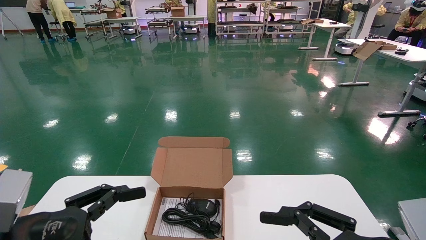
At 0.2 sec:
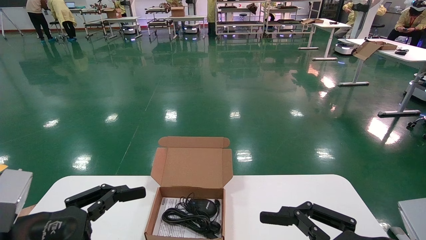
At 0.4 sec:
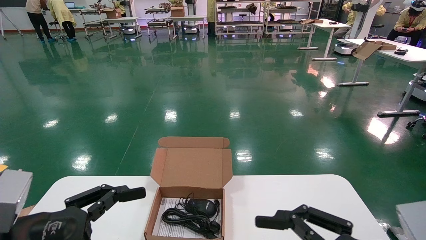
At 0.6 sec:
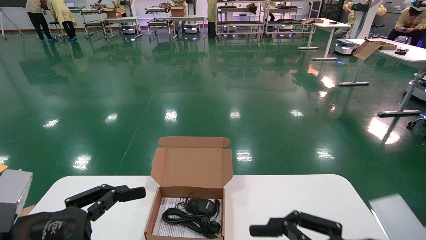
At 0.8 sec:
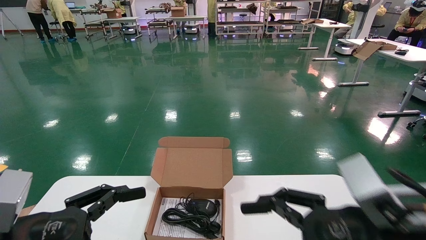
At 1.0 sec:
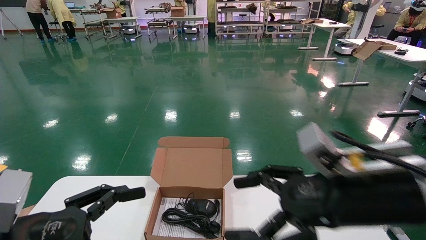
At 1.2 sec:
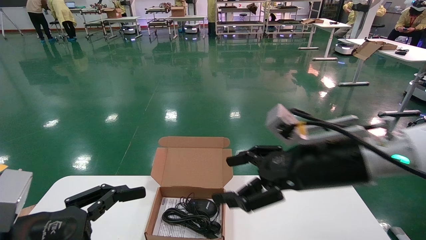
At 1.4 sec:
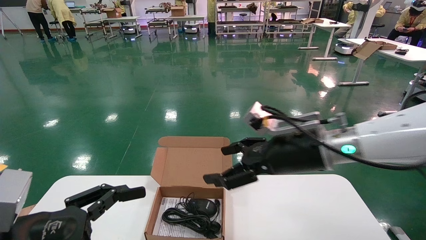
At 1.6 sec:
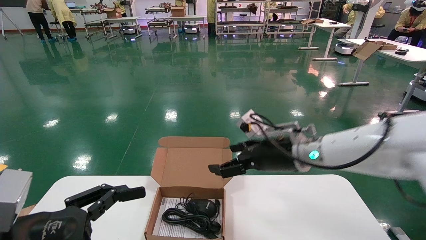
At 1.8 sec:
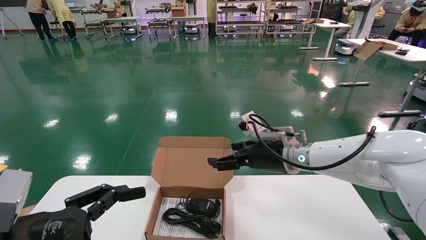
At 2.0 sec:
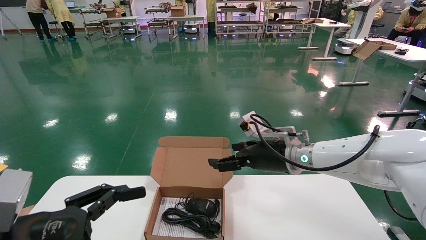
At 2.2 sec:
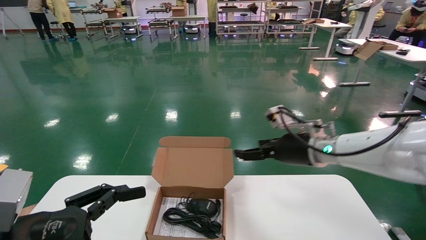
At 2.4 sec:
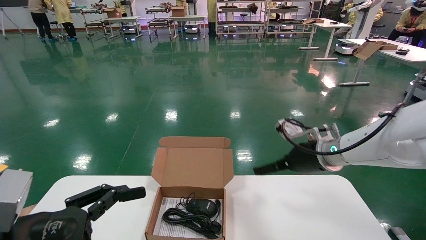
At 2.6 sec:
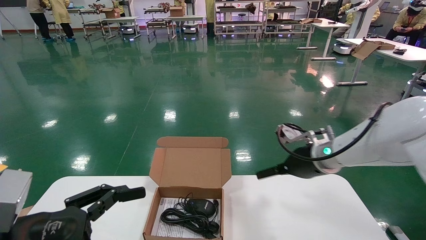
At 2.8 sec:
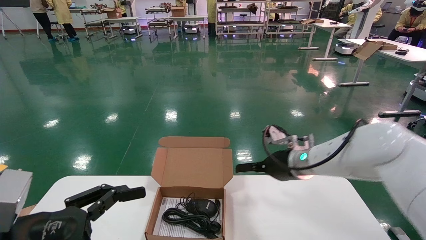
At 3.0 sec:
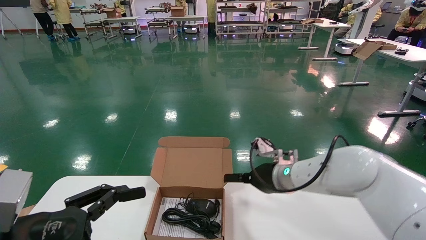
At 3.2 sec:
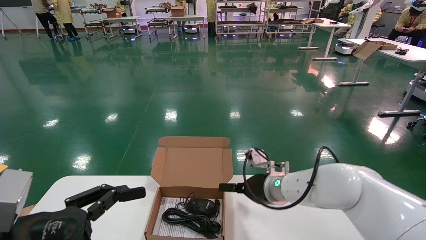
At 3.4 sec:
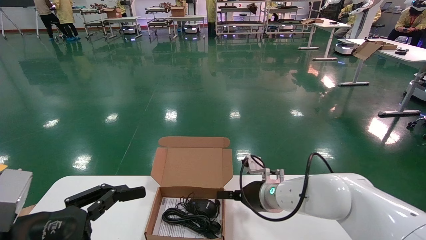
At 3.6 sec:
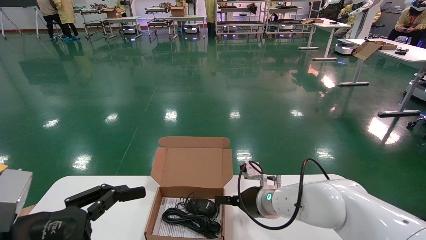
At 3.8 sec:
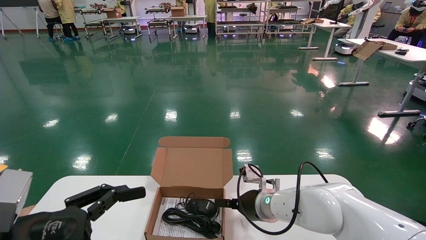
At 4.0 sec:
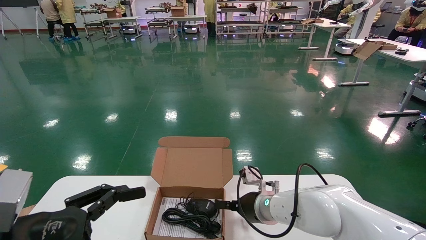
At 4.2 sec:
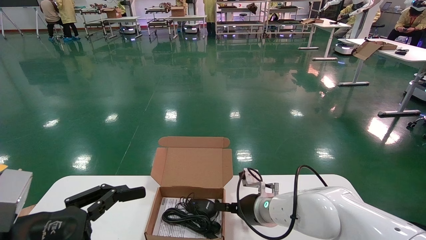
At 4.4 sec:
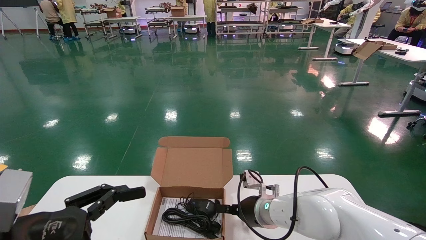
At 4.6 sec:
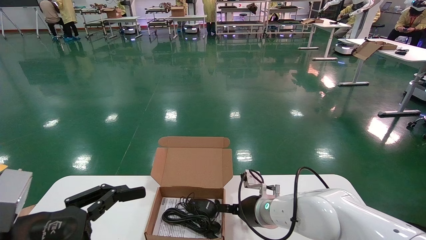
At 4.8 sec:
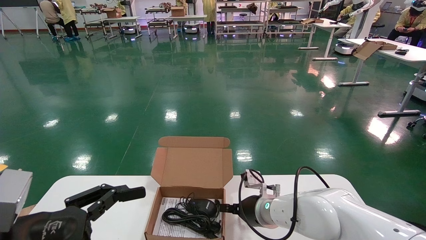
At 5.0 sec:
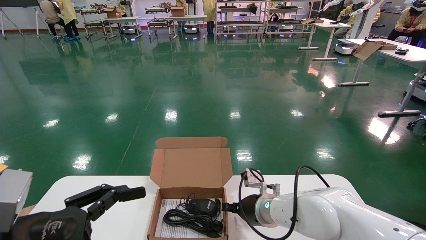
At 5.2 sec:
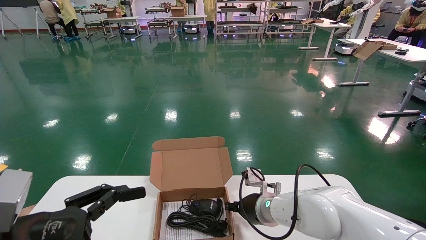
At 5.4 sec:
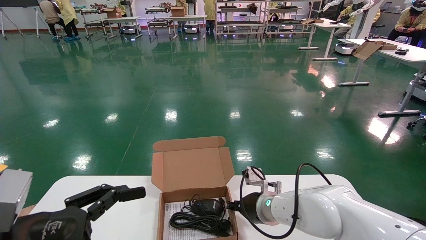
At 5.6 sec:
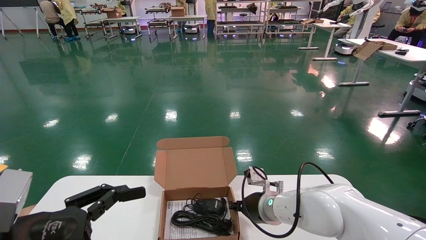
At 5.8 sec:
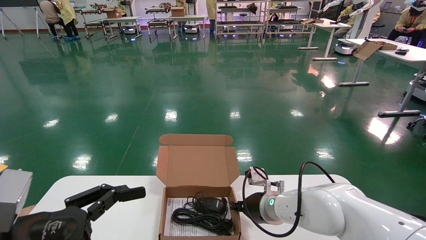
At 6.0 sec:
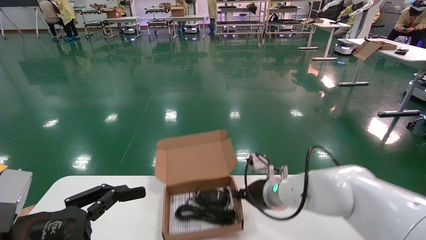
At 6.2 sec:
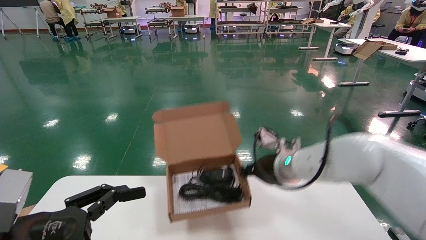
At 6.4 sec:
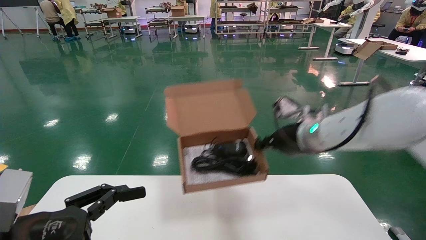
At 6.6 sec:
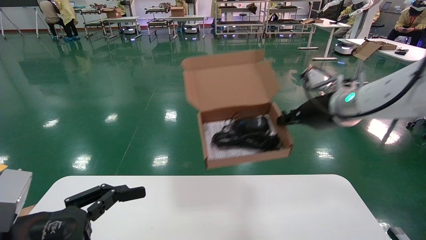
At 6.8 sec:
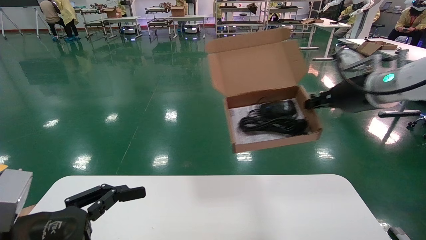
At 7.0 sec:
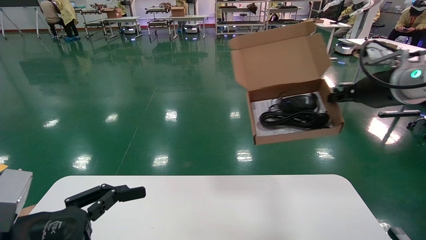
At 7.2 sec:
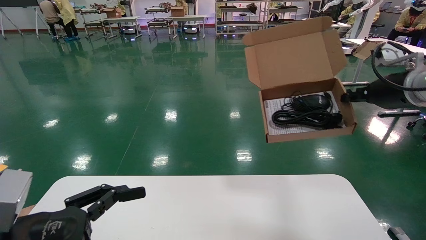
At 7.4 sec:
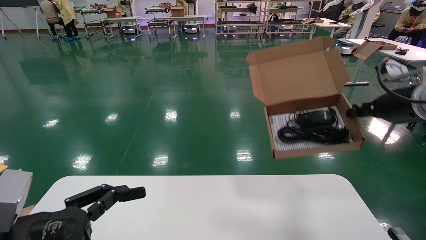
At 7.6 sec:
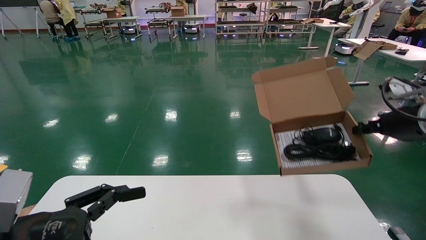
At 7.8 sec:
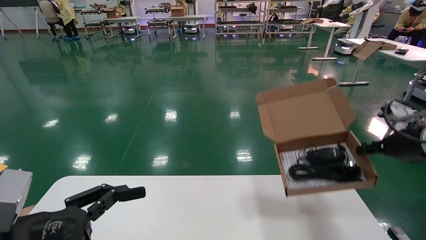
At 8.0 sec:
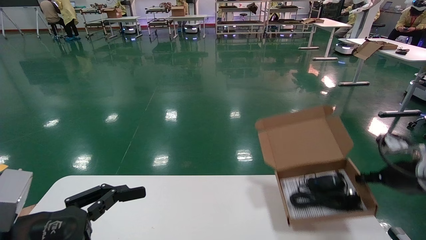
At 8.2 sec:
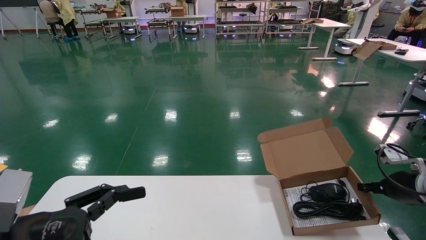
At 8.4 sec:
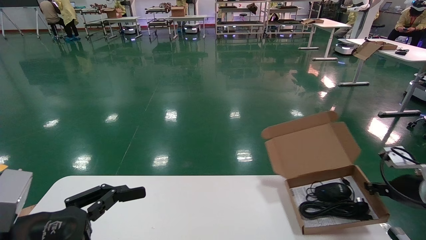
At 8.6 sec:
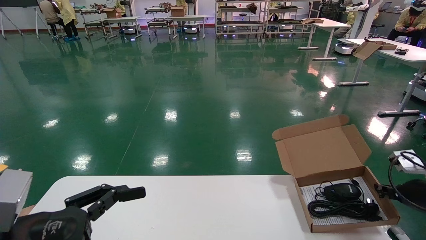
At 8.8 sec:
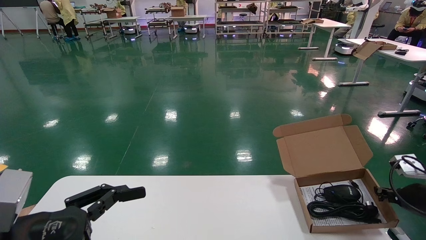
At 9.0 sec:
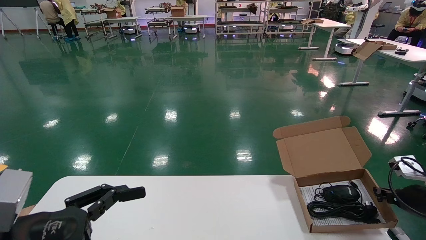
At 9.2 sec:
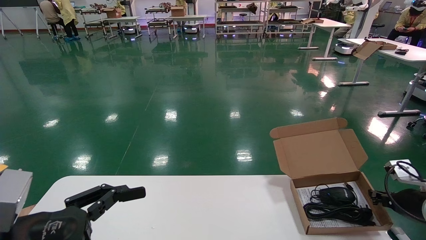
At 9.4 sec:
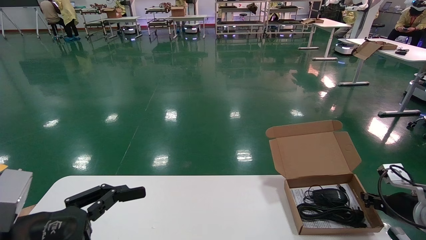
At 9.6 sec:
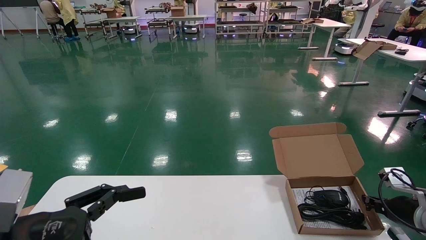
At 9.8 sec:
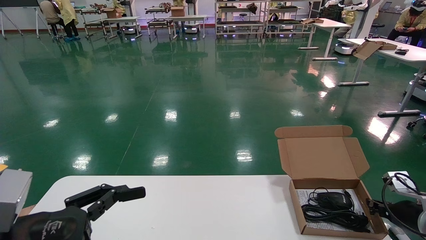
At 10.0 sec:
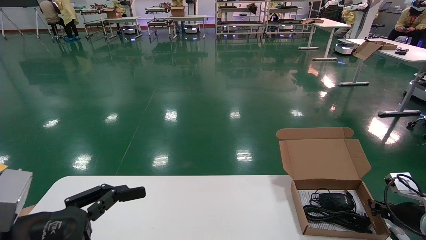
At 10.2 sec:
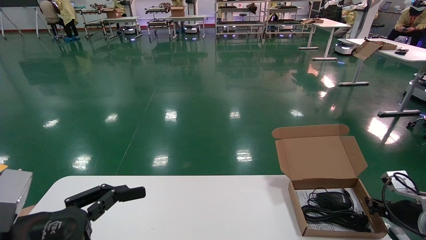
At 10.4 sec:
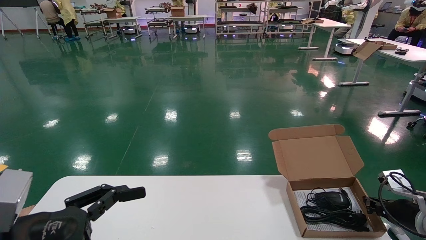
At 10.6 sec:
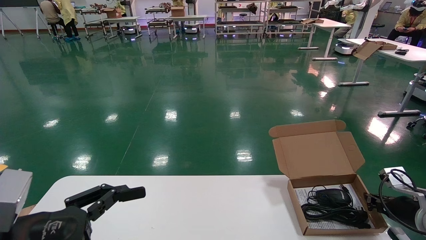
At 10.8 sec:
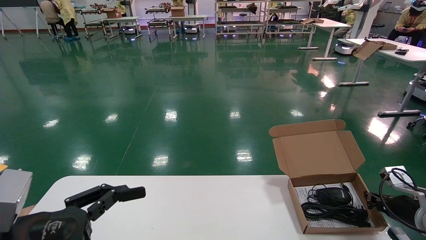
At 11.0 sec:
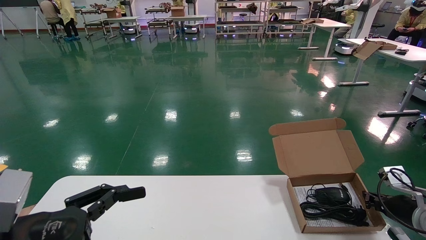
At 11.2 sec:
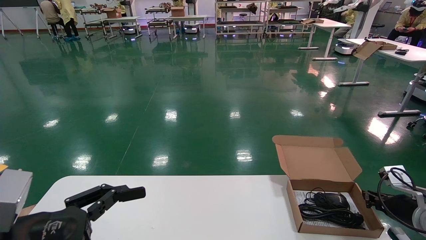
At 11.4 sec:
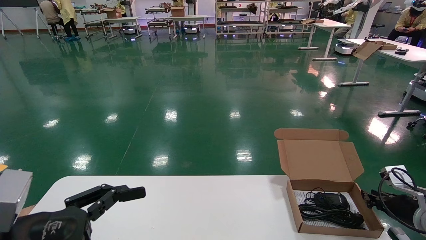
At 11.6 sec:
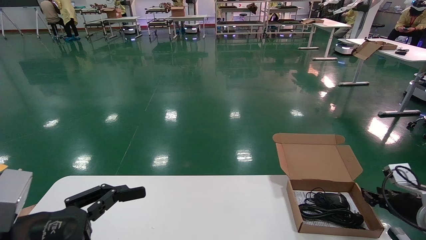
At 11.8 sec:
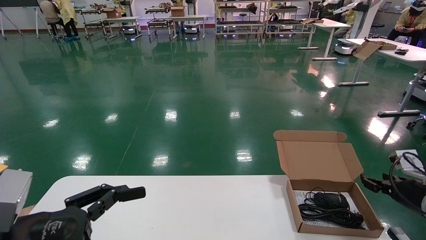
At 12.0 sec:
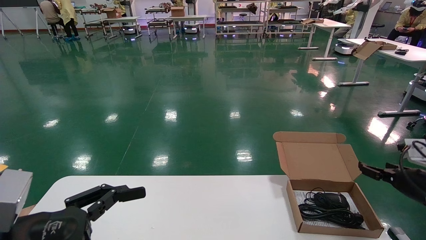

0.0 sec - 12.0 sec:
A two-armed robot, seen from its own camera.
Task of the whole recording: move the position of the storage box with accessories on the table.
Step, 1.0 sec - 5.6 sec: Grab and pick up the open mouse box from the accessory packaging area.
Step, 5.8 sec - 11.2 sec: Place the open mouse box onto the operation table.
0.0 sec - 1.6 sec: The right gripper shifts approximately 25 cm forward and to the left.
1.6 sec - 3.0 sec: The right gripper travels downward and forward by about 10 cm, and travels to the right and back again, approximately 5 cm each way.
3.0 sec - 4.4 sec: The right gripper goes some 10 cm downward.
4.4 sec - 6.0 sec: The right gripper is displaced upward by about 5 cm, and closes up.
6.0 sec - 7.6 sec: The right gripper goes roughly 30 cm to the right and upward.
7.6 sec - 9.0 sec: The right gripper is displaced downward by roughly 20 cm.
9.0 sec - 10.4 sec: There are only small adjustments of the grippers.
10.4 sec - 12.0 sec: The right gripper travels upward by some 5 cm, and opens its fingers.

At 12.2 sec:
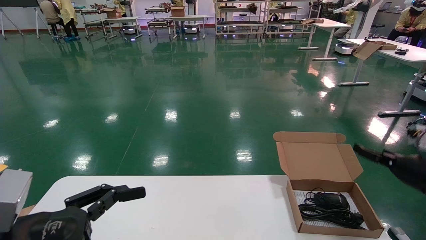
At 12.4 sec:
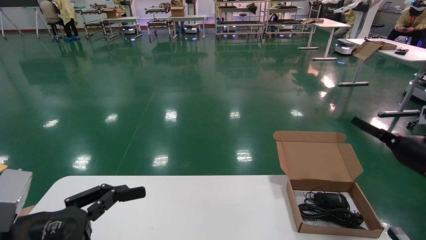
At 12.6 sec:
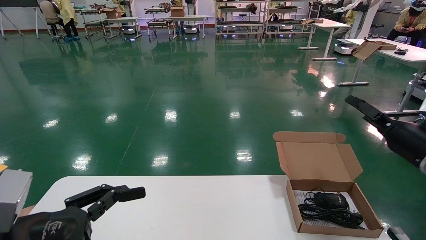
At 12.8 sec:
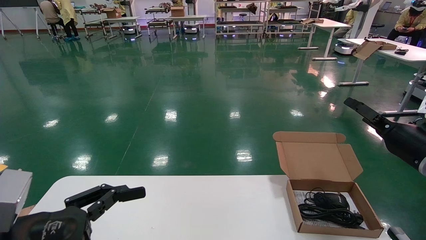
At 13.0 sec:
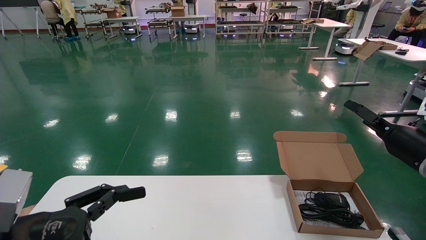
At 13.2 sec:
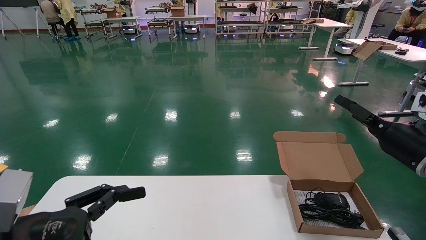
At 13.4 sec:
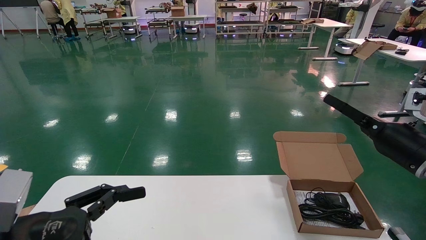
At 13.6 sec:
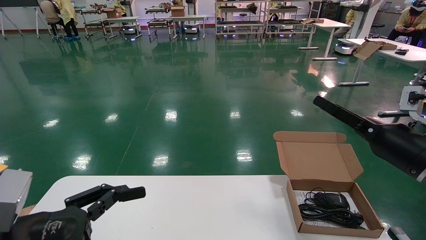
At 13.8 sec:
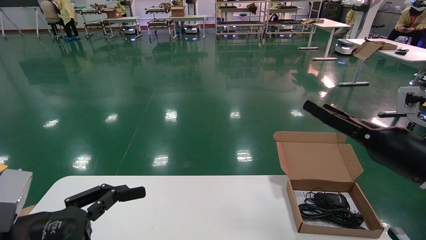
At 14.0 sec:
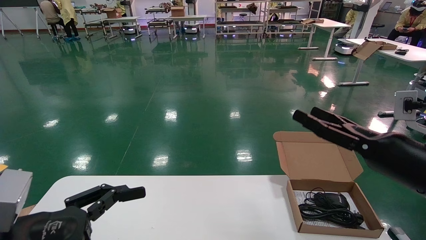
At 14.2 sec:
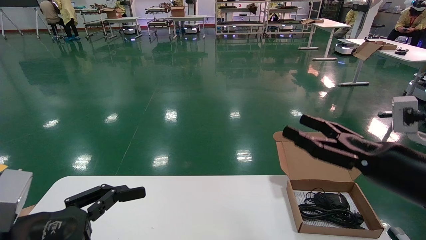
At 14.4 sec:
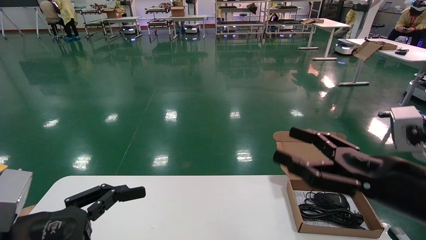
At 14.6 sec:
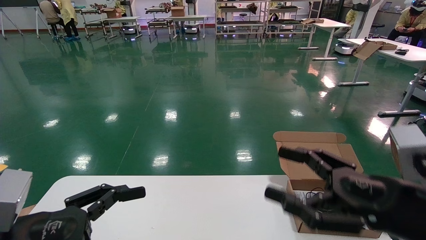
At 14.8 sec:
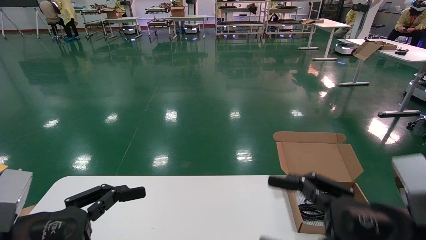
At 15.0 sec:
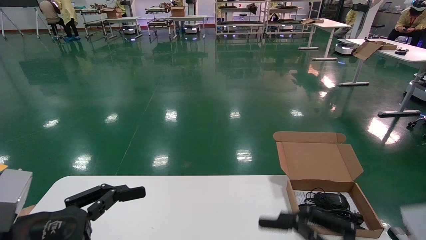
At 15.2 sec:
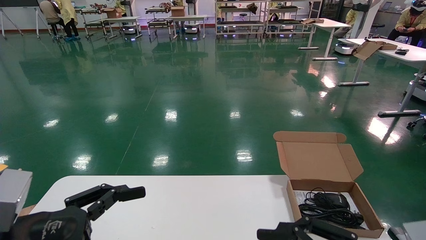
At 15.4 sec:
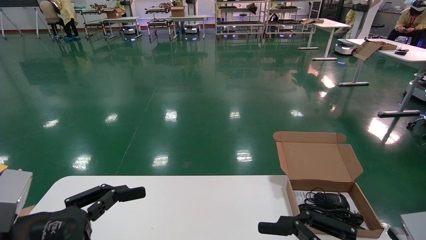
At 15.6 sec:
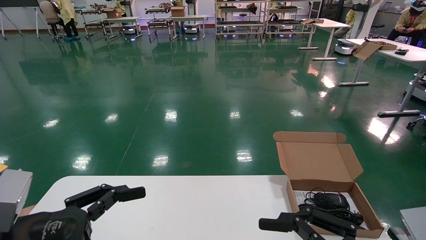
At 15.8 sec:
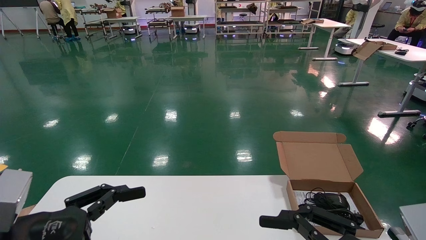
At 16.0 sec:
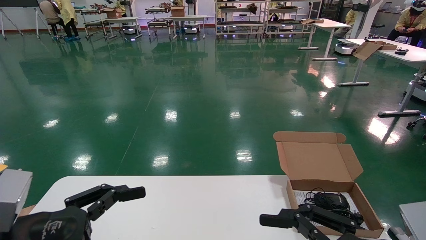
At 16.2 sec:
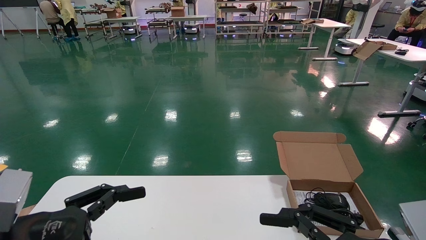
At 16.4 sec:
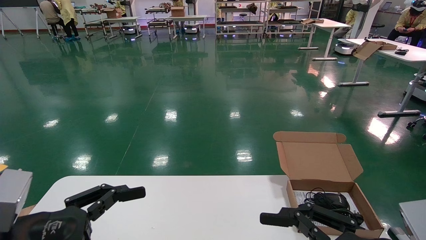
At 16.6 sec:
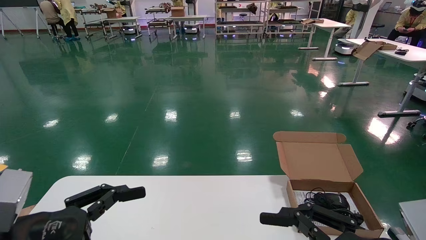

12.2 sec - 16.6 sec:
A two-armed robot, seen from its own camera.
Task of the whole recording: move the position of the storage box with accessories on the table.
12.2 sec - 13.6 sec: The right gripper goes approximately 10 cm to the left, backward and upward.
13.6 sec - 15.2 sec: The right gripper is displaced backward and to the left by about 20 cm.
15.2 sec - 16.6 sec: Both grippers stay put.
